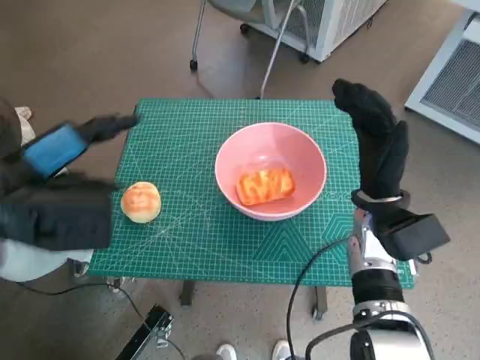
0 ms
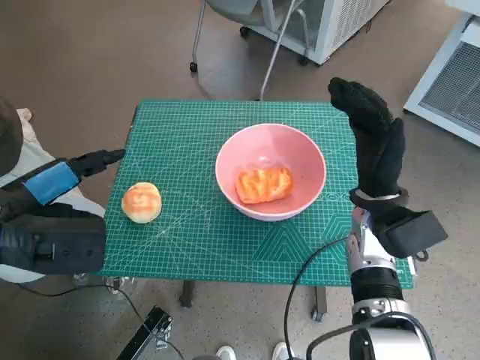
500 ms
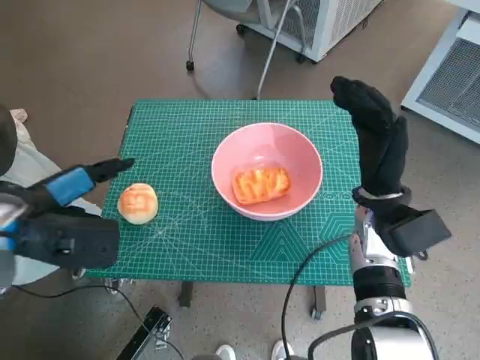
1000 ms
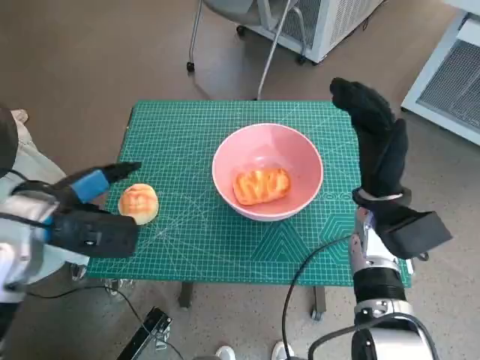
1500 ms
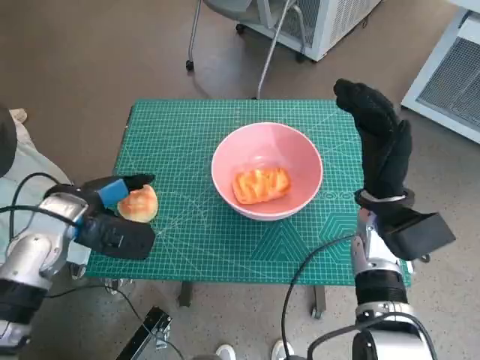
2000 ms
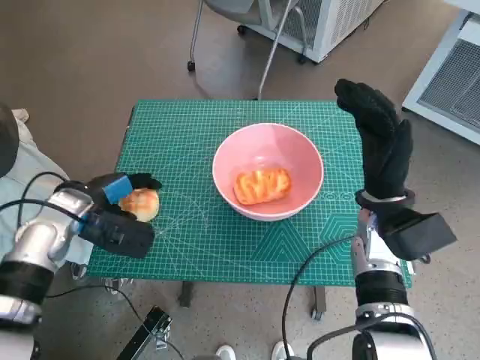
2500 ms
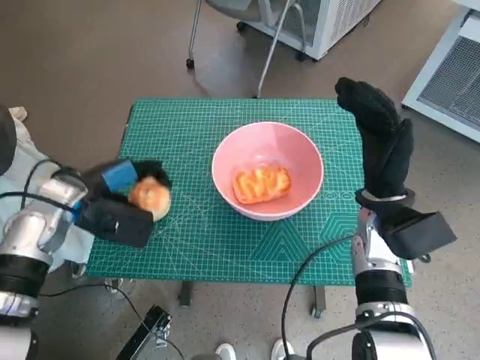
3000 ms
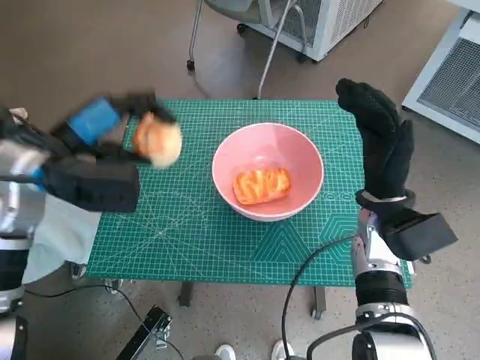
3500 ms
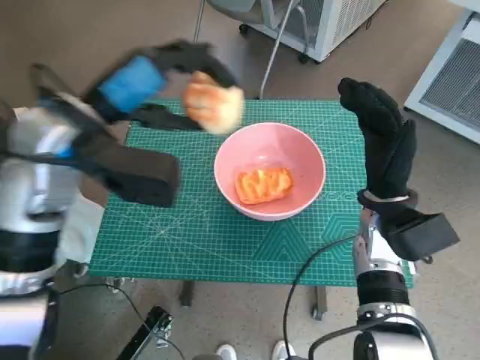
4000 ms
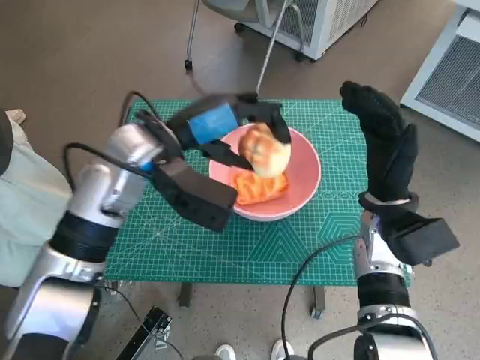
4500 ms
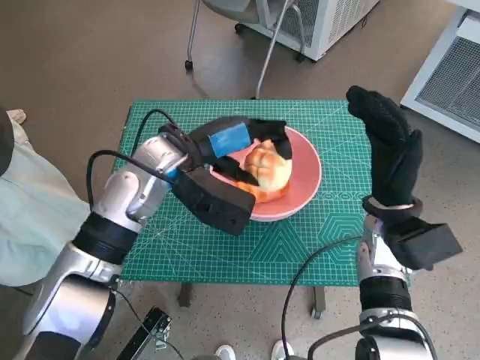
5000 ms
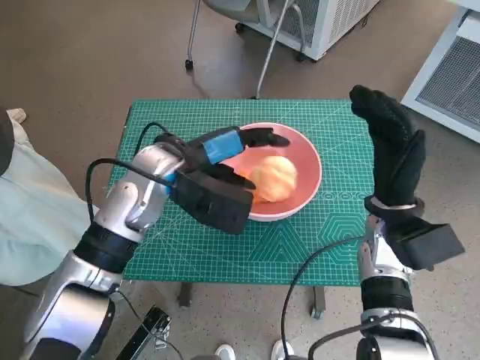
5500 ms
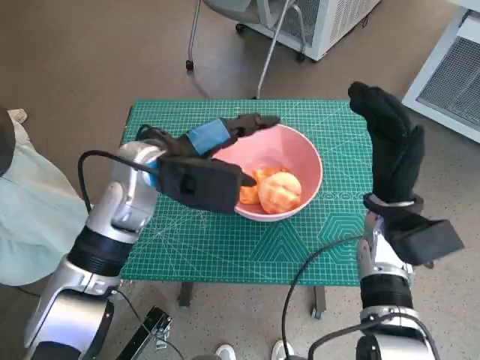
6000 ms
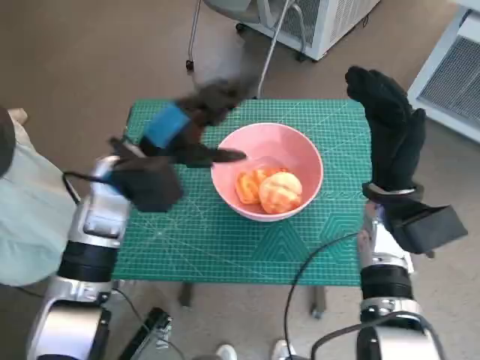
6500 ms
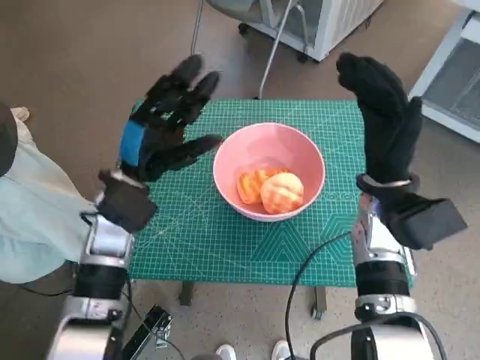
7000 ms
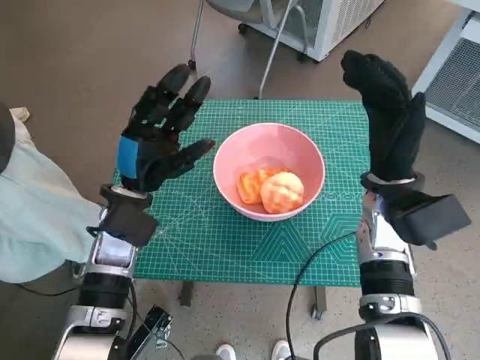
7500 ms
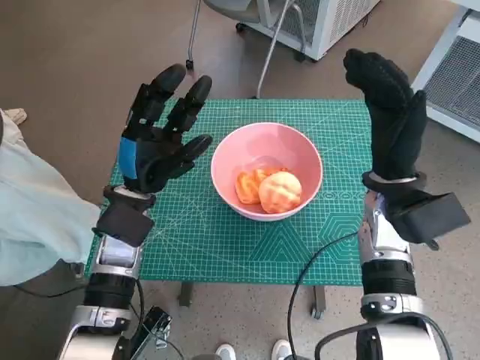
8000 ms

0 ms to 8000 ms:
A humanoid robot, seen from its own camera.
Task of the whole recording: Push the bowl to the center of the table and put the bread into the bowl.
Step, 0 ms to 2000 ms: Grasp the round bread with left hand.
Step, 3000 ms to 5500 ms: Place the round bread in pink bowl with left hand.
0 ms to 2000 ms: The left hand heads downward, covering approximately 10 cm.
2000 ms to 4000 ms: The left hand travels upward and to the right by about 15 cm.
4000 ms to 6000 ms: The left hand shifts roughly 10 cm downward and to the right.
6000 ms to 8000 ms: The left hand shifts roughly 10 cm downward.
